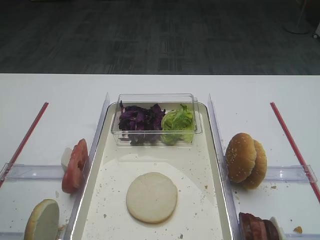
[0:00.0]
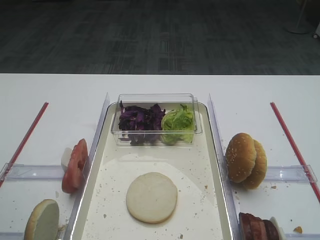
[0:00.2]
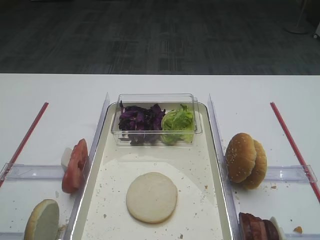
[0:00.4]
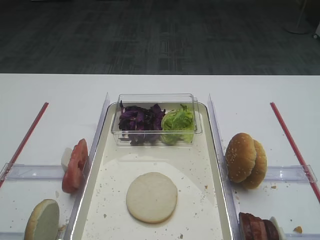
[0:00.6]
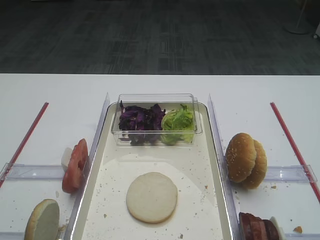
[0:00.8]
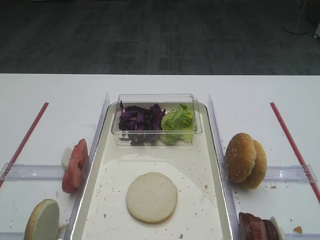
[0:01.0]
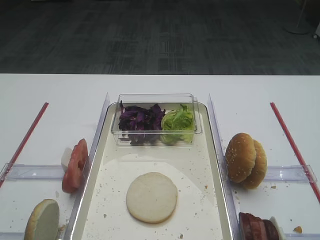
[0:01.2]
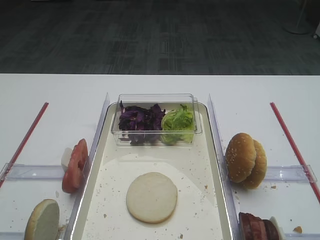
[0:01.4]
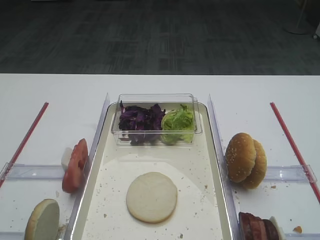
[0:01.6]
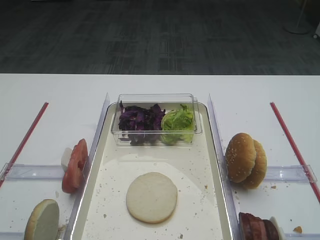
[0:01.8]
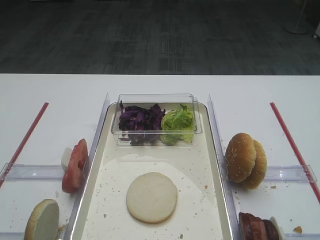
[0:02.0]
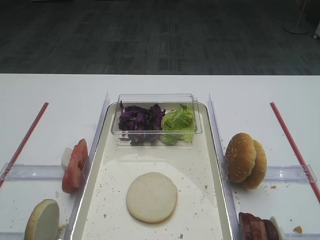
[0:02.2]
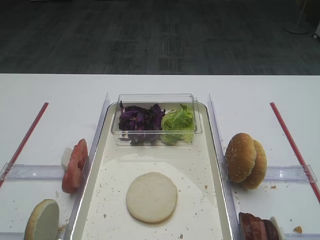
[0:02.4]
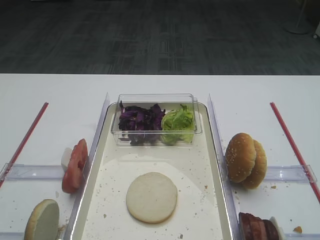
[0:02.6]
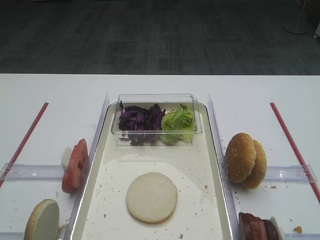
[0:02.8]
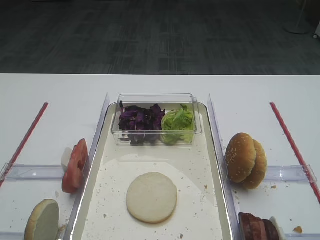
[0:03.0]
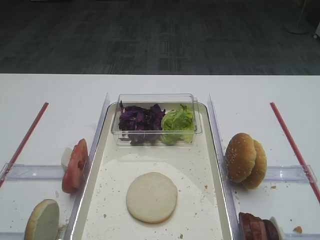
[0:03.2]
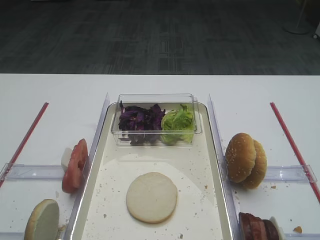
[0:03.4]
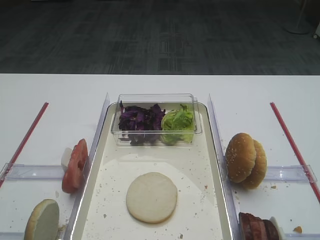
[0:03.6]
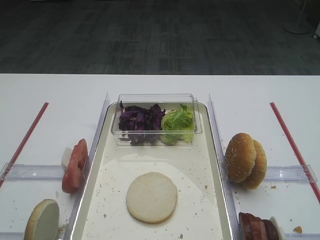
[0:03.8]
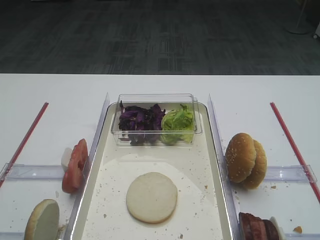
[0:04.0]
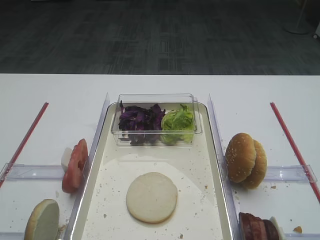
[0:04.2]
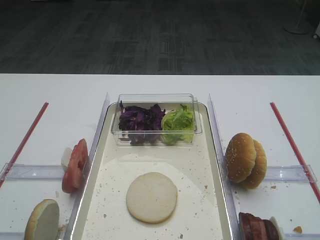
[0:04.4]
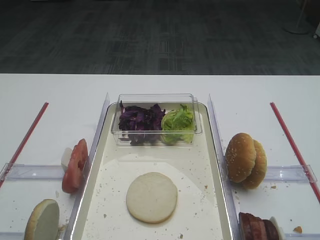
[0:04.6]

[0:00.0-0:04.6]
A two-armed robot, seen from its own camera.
0:01.6 to 0:04.6: Both grippers stay about where they are.

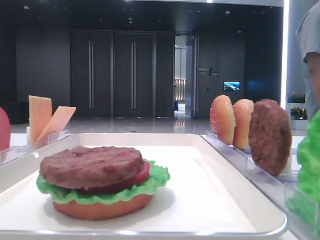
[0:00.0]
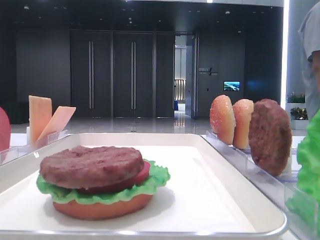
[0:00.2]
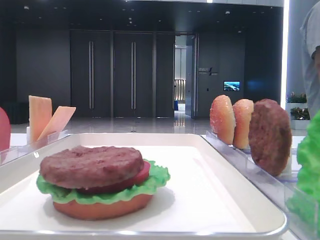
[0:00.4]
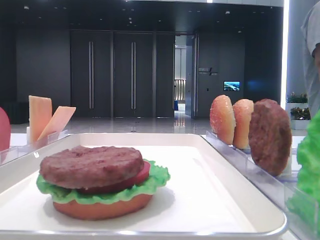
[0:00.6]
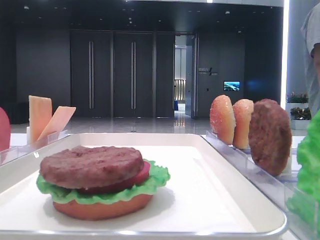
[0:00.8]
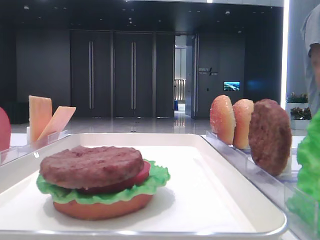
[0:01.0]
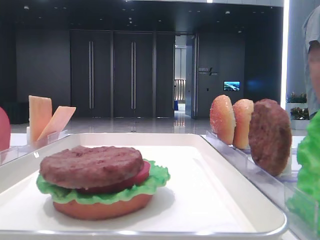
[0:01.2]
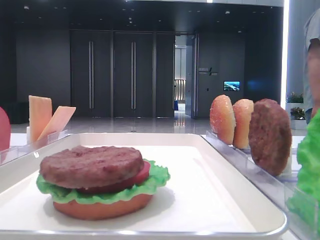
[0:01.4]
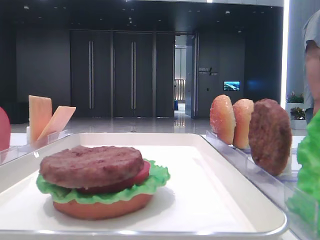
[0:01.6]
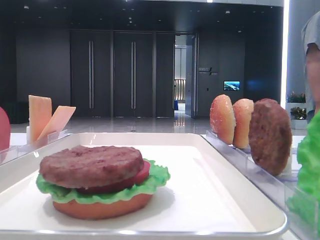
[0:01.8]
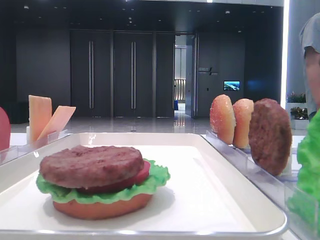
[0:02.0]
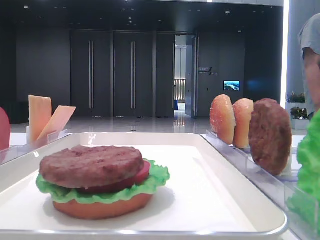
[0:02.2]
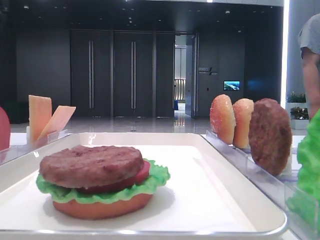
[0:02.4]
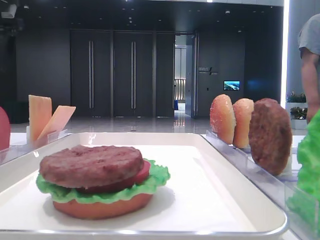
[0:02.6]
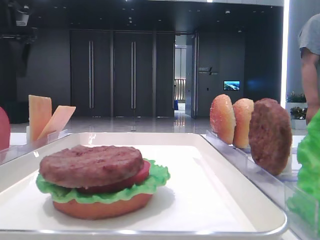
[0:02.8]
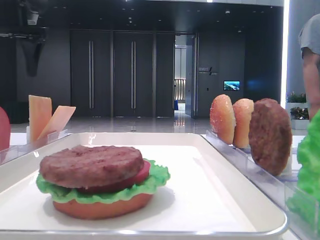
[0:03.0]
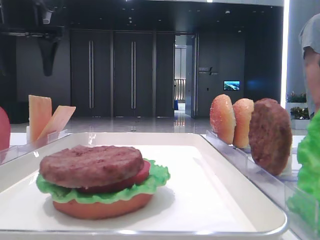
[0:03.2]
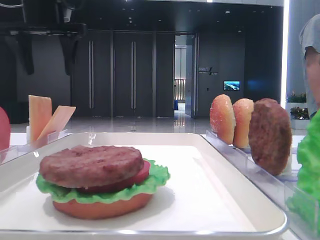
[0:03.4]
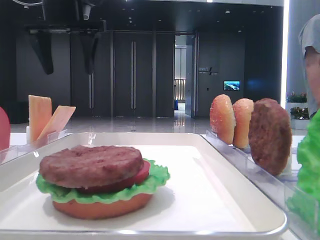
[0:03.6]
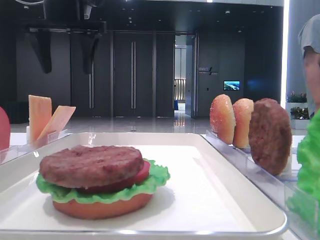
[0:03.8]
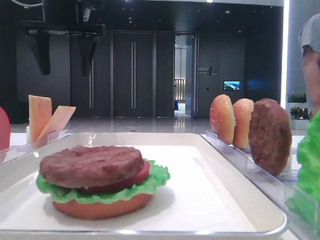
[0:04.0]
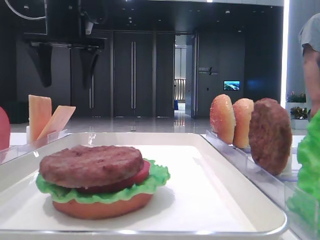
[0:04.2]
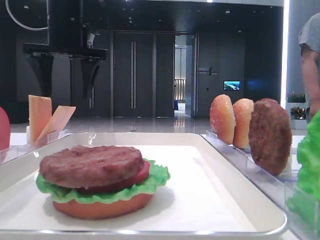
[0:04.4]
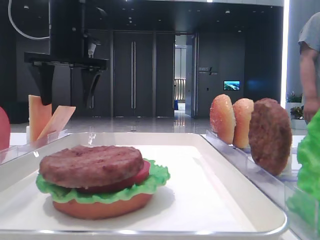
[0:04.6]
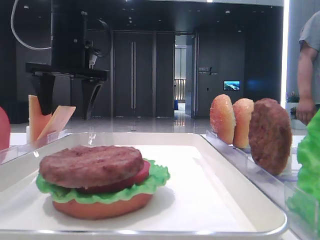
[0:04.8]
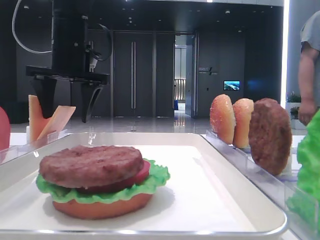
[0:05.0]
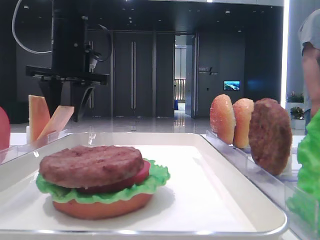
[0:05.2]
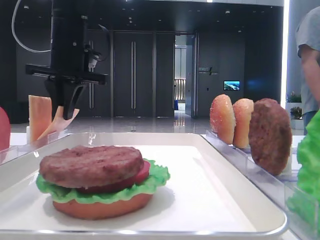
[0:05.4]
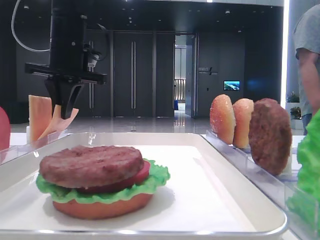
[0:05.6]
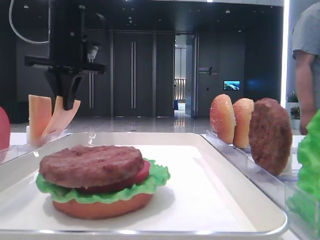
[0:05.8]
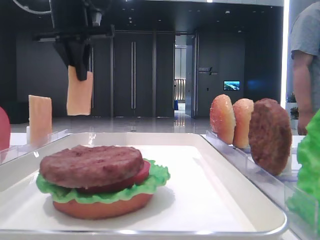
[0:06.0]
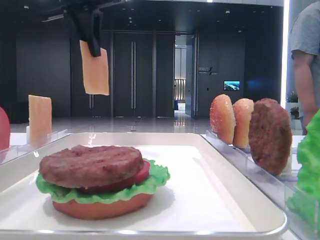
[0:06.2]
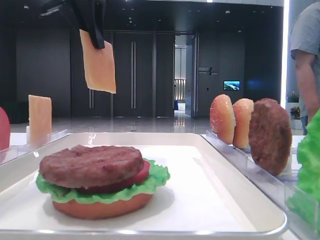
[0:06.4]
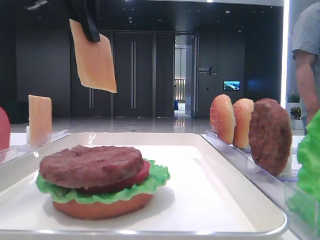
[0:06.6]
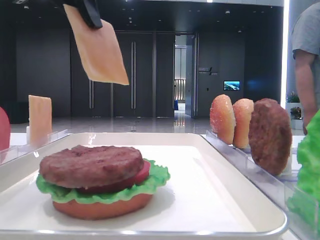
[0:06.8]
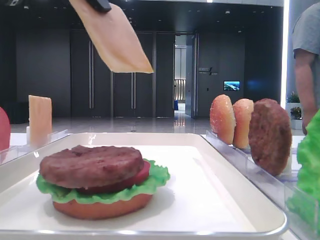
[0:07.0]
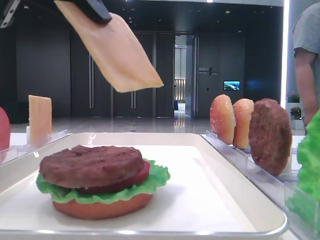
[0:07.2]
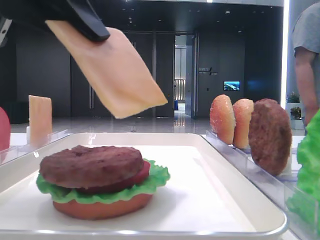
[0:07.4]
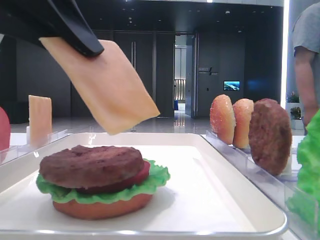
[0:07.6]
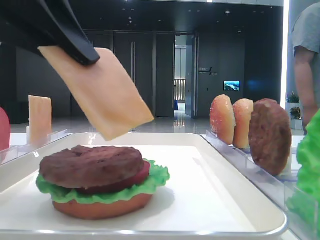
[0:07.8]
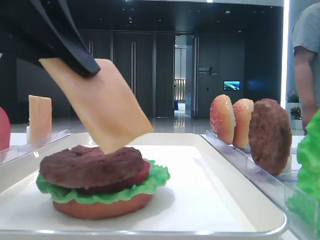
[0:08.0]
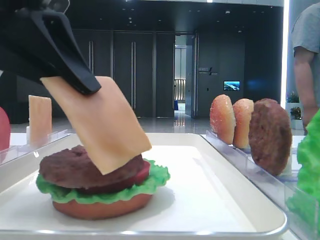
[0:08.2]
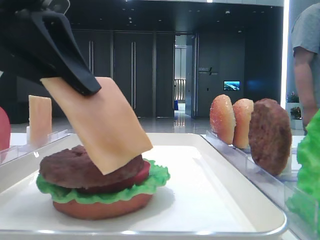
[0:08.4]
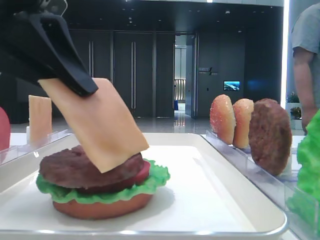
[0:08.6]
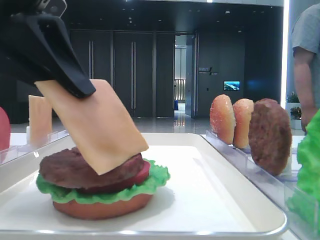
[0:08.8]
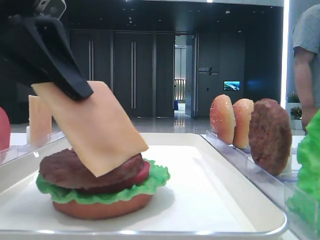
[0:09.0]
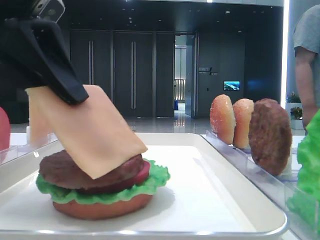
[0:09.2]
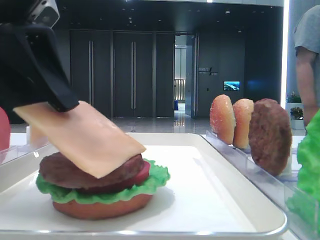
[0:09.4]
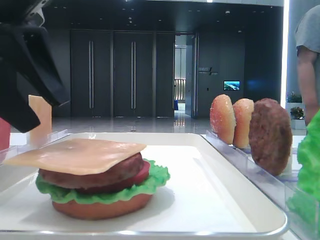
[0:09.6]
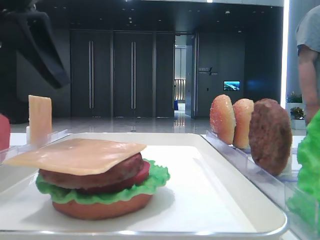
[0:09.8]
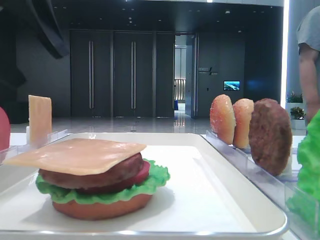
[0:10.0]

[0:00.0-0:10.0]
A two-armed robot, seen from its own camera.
Step, 0:00.0 to 0:05.6: Pick up the cheese slice with the left hand.
Step, 0:05.8 to 0:09.6: Place the cheese slice on the patty with the left hand.
0:01.4 to 0:02.8: The left gripper is displaced forward by approximately 35 cm.
0:02.8 to 0:04.2: The left gripper goes about 15 cm to the right.
0:04.2 to 0:05.8: The left gripper closes its fingers.
0:05.8 to 0:07.2: The left gripper travels backward by some 25 cm.
0:07.2 to 0:08.6: The left gripper moves downward, roughly 5 cm.
0:08.6 to 0:10.0: The left gripper moves to the left, approximately 5 cm, and opens up.

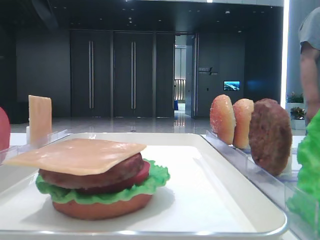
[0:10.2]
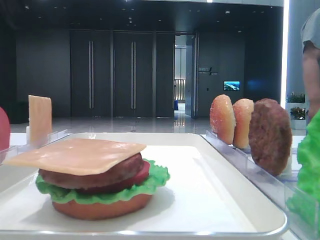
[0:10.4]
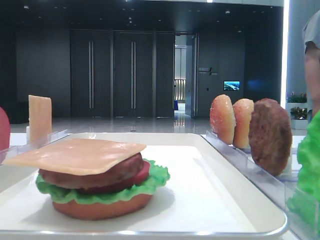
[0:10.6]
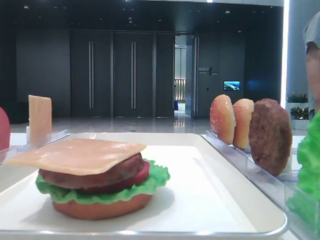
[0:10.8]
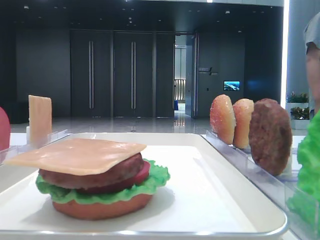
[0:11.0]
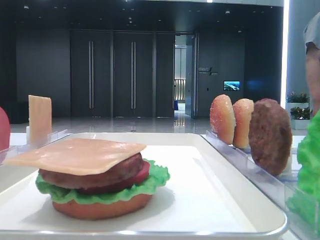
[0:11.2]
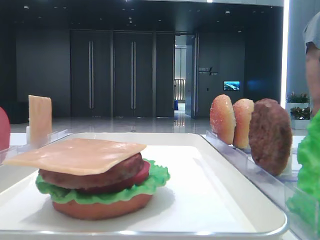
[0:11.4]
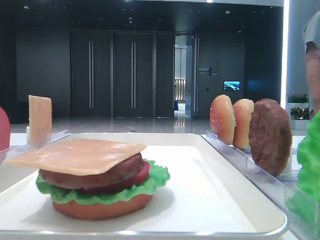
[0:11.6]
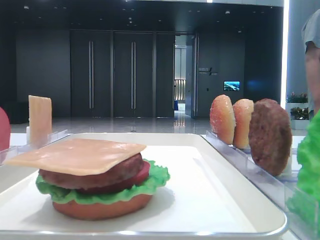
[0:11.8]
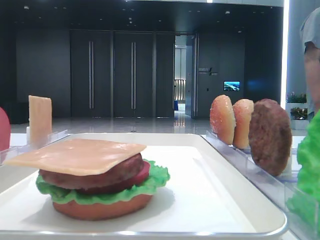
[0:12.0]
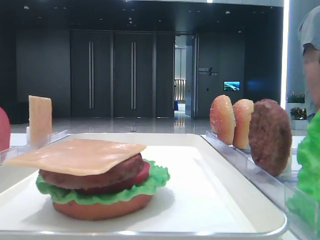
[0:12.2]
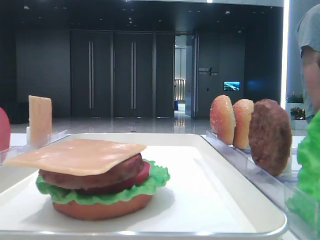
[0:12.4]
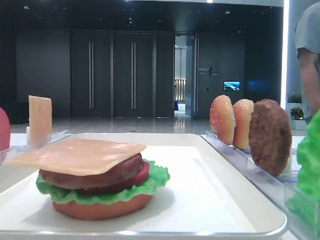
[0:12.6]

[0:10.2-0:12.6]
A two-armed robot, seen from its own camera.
0:10.2 to 0:11.4: The left gripper moves to the left and backward, about 15 cm.

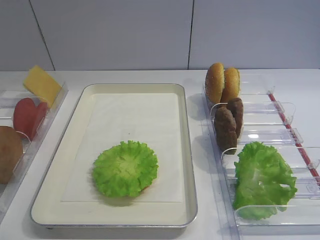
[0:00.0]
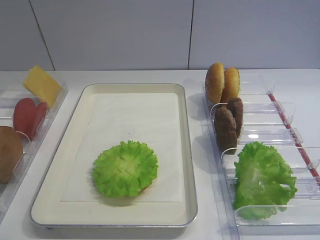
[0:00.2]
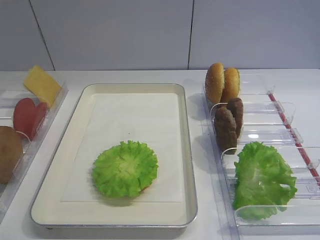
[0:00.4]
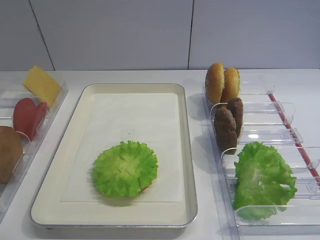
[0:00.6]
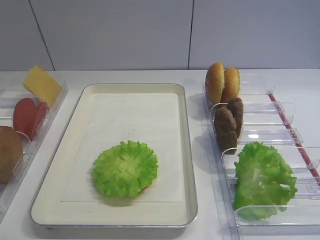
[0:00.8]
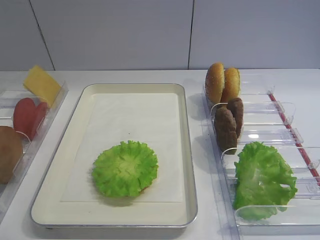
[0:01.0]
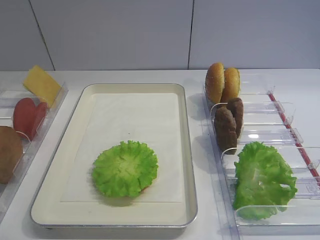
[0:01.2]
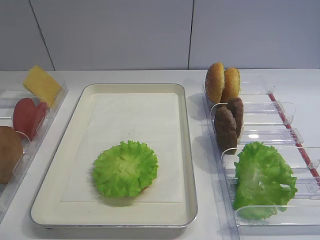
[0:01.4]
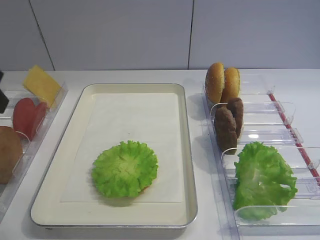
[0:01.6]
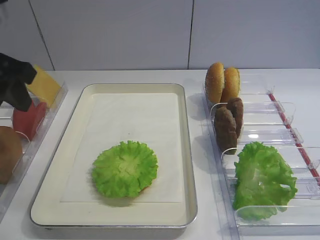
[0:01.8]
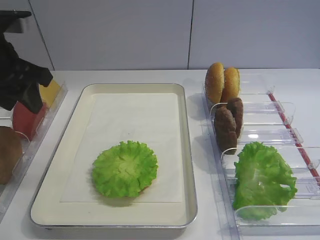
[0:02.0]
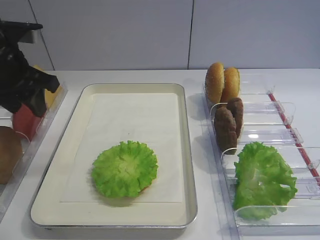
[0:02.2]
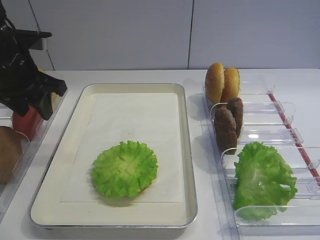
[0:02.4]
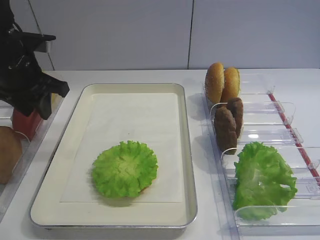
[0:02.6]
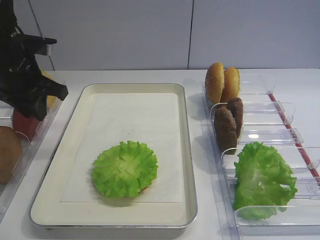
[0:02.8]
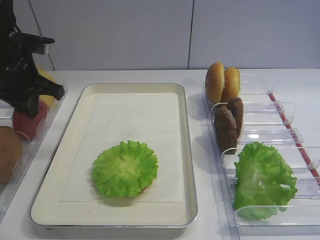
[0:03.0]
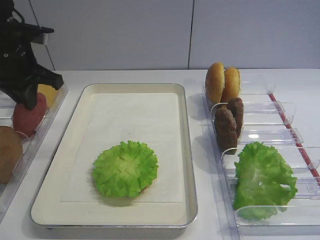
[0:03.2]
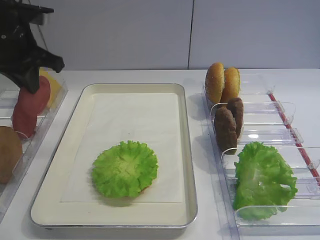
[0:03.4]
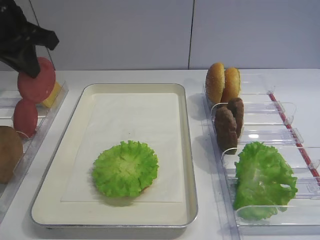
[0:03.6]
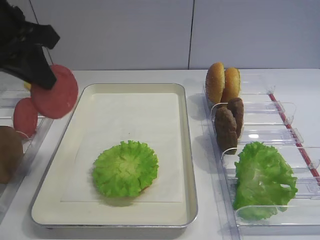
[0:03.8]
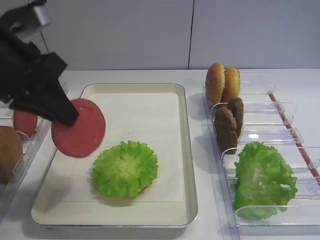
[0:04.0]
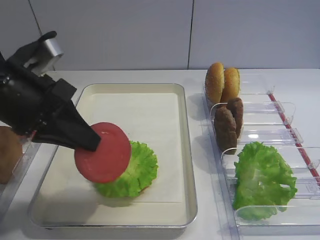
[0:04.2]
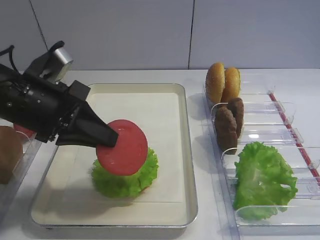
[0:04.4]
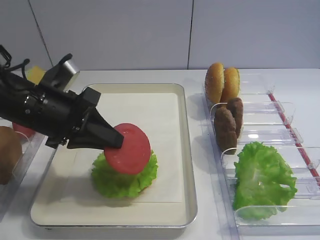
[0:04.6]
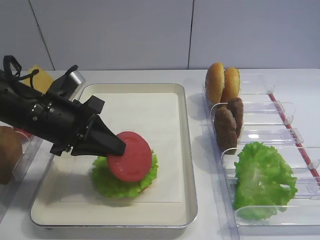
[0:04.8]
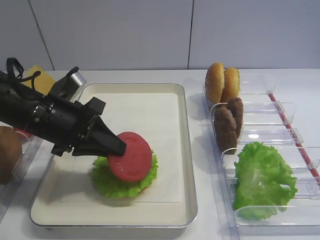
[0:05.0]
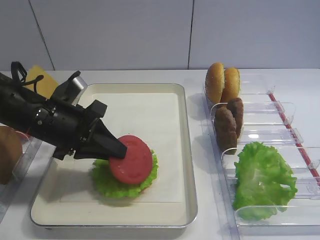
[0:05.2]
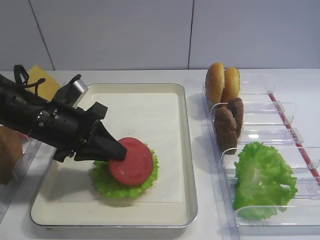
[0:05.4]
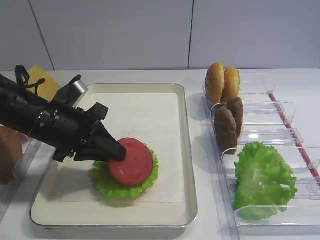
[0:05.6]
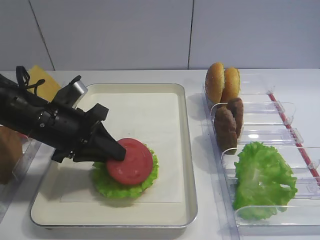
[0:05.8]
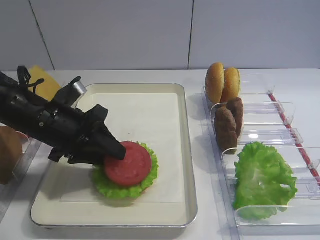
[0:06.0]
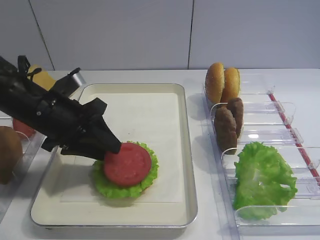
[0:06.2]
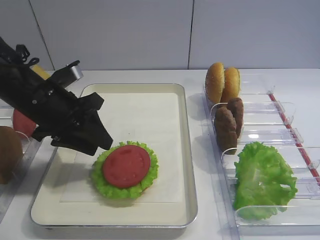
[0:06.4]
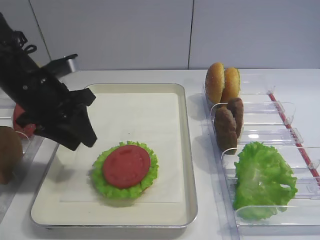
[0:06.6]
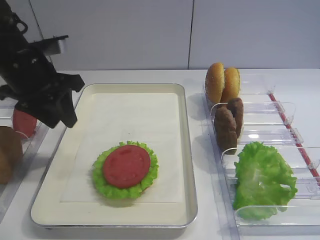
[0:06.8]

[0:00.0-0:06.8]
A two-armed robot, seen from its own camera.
Step, 0:00.0 to 0:03.4: Pick up the tomato slice with the left gripper.
Step, 0:03.6 to 0:06.6: Place the tomato slice on the lettuce leaf with the left gripper.
0:01.4 to 0:02.8: The left gripper heads forward, covering some 25 cm, and closes.
0:02.8 to 0:04.0: The left gripper heads backward and upward, covering roughly 10 cm, and closes its fingers.
0:04.0 to 0:05.4: The left gripper shifts approximately 15 cm downward.
0:05.4 to 0:06.8: The left gripper heads upward, covering about 5 cm, and opens its fingers.
